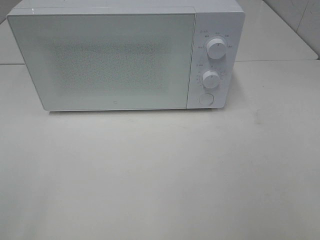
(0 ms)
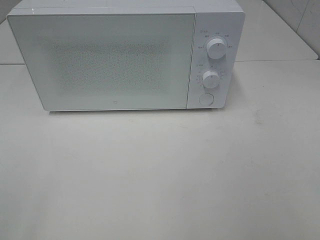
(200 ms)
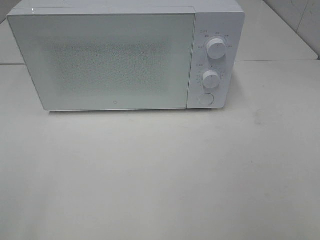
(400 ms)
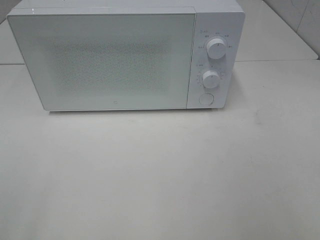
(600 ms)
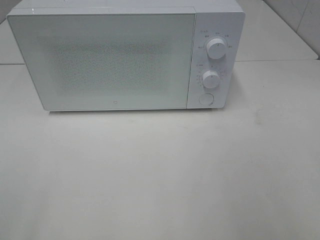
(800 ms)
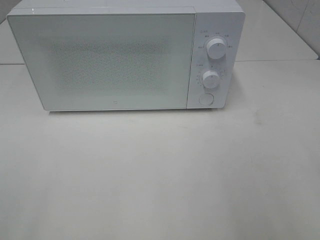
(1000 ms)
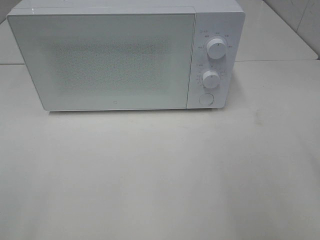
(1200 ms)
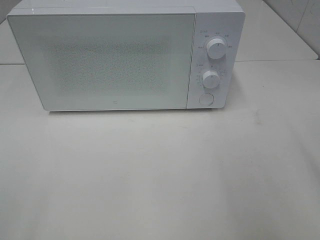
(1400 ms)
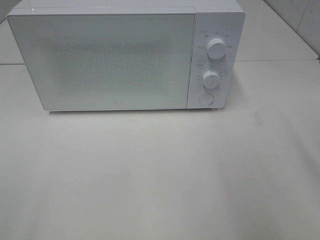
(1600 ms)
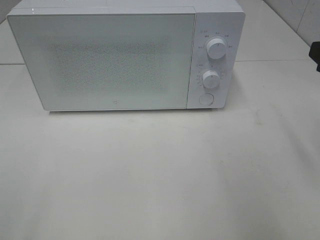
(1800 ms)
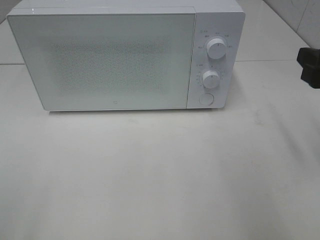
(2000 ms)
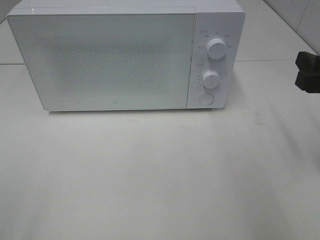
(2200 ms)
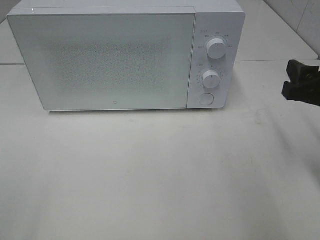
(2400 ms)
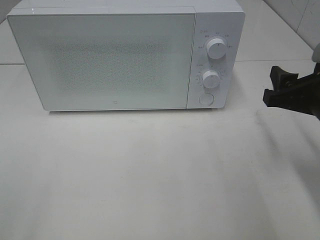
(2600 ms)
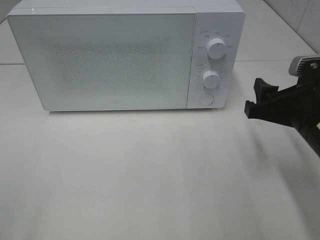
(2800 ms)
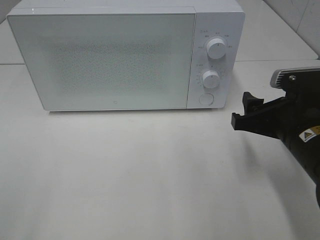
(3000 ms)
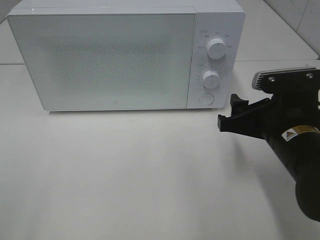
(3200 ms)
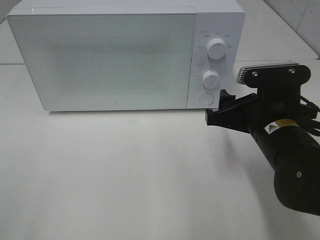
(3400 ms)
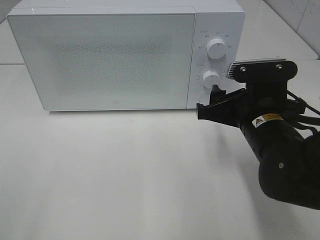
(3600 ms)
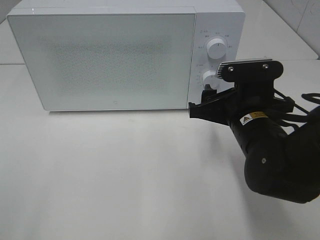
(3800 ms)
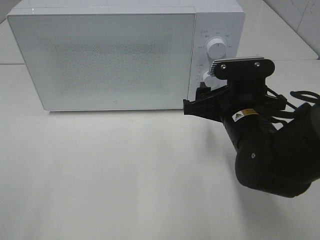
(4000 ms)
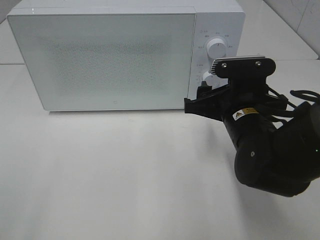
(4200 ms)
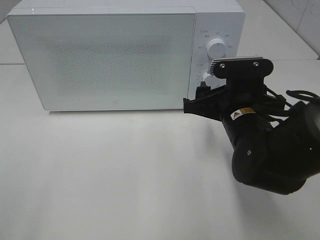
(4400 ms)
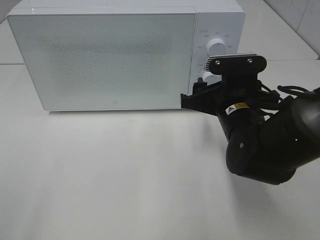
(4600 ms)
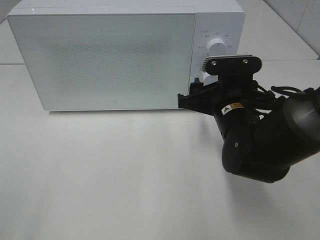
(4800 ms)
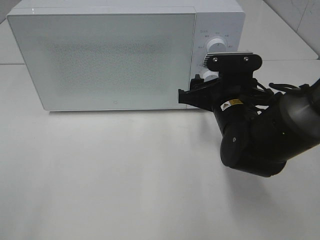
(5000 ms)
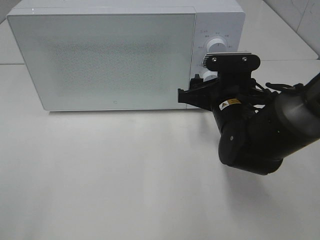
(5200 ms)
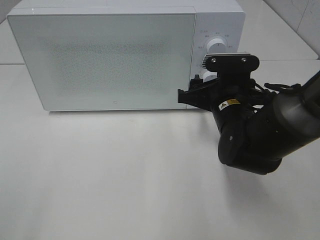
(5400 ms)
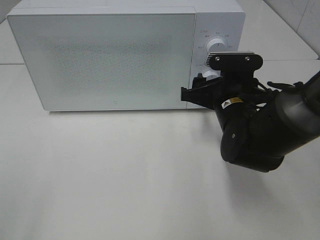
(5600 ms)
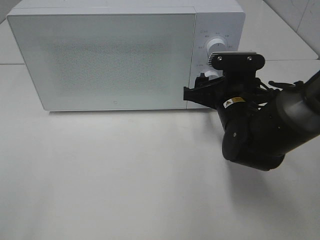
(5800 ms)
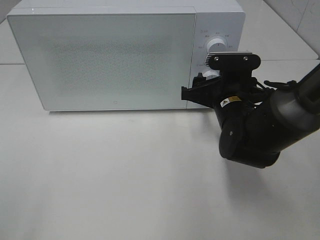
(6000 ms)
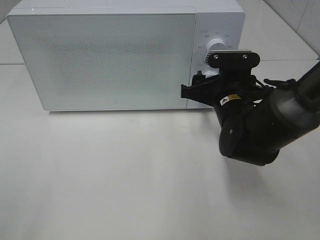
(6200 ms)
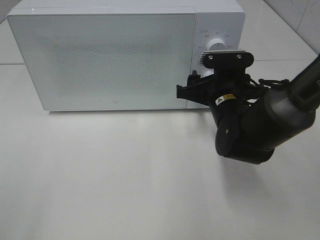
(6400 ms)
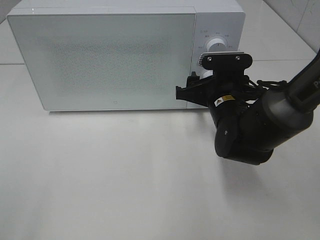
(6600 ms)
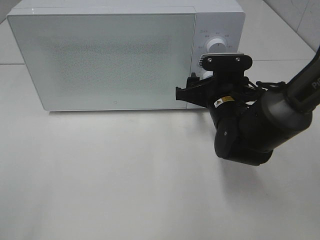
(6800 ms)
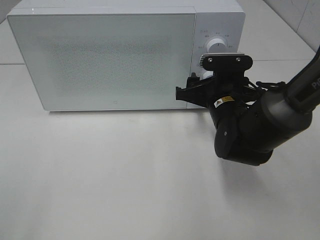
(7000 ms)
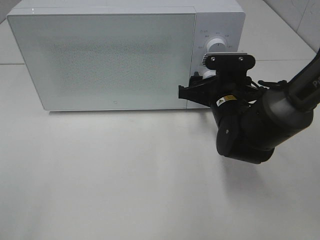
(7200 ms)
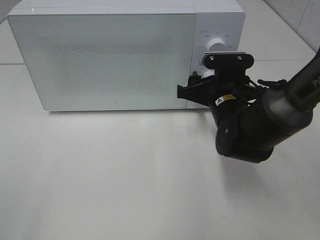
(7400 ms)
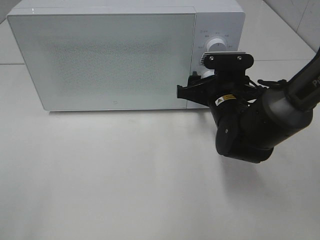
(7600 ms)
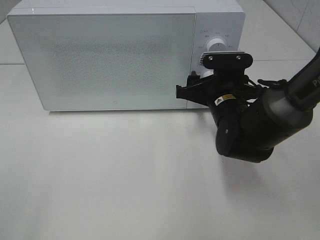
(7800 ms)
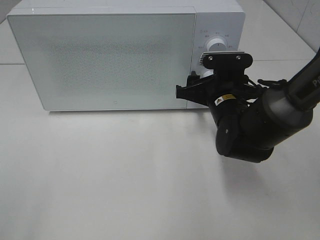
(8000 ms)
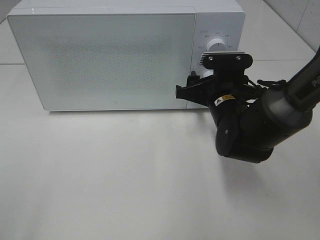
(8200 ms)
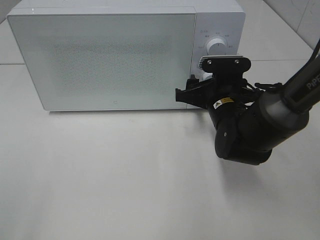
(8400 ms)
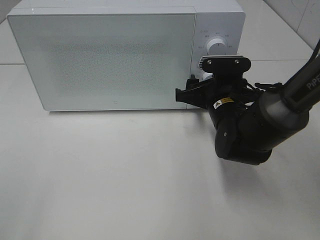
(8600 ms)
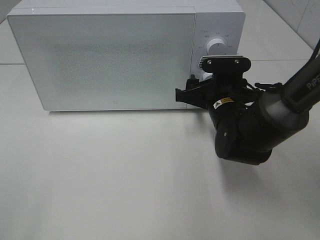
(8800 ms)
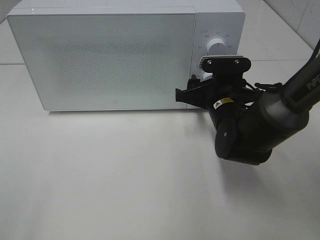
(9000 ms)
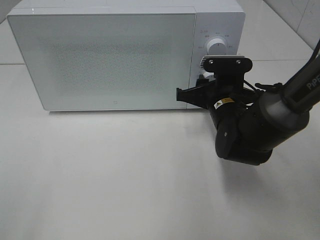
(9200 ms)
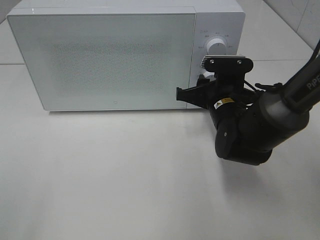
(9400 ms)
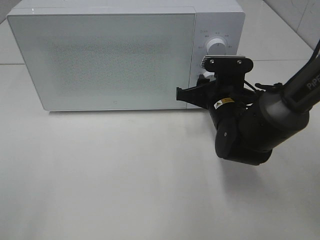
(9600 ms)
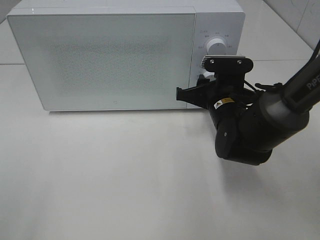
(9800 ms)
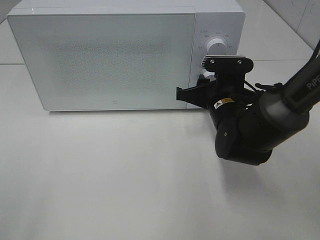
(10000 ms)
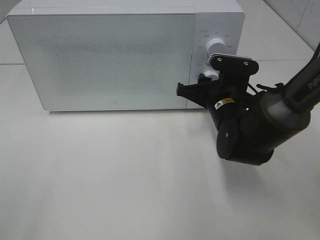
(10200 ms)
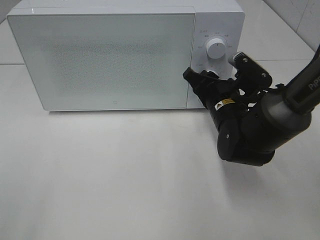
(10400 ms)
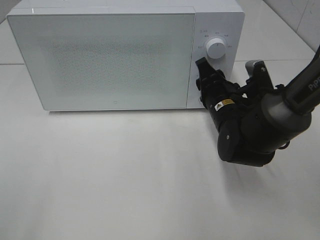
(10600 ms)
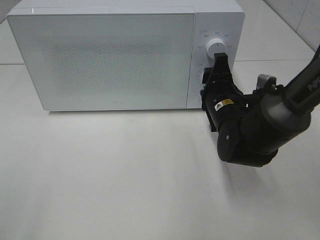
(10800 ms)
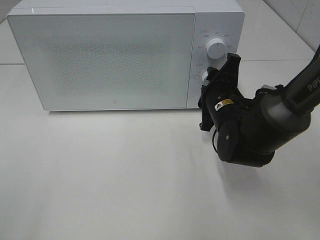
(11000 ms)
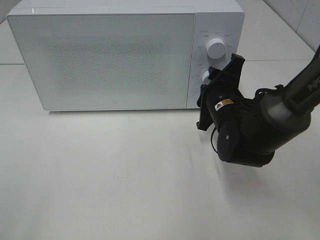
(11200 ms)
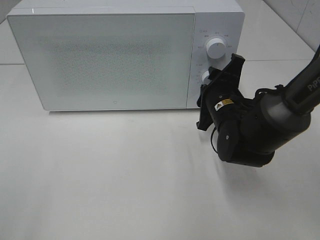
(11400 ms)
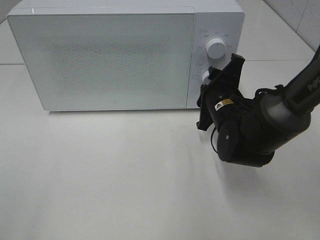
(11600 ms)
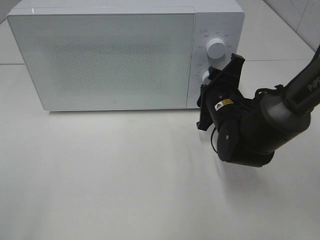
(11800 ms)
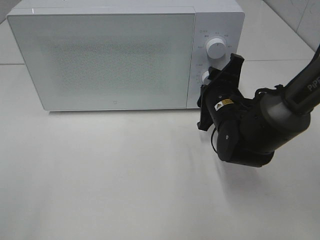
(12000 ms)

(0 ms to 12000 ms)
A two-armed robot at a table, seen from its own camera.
Task of the whole recording: Heat the burger.
1600 ms - 3000 ms: The right gripper goes roughly 15 cm downward and to the left.
3000 ms - 4400 ms: The right gripper is displaced to the left and forward by approximately 10 cm.
4400 ms - 6000 ms: The right gripper moves roughly 5 cm.
6000 ms - 7600 ms: The grippers make only small movements.
7600 ms - 9000 ms: Both grippers stay put.

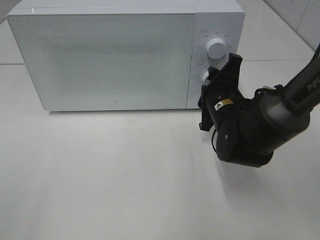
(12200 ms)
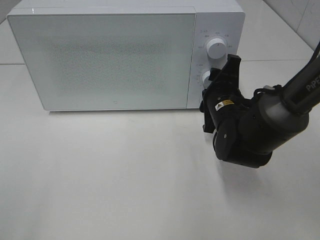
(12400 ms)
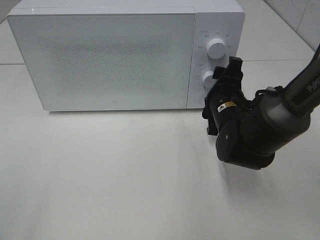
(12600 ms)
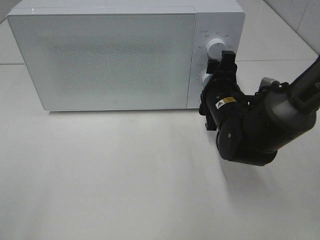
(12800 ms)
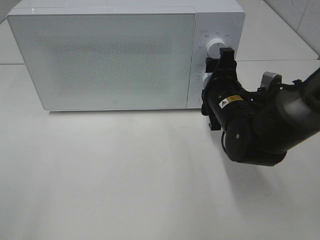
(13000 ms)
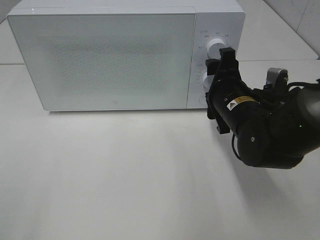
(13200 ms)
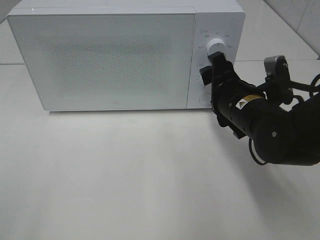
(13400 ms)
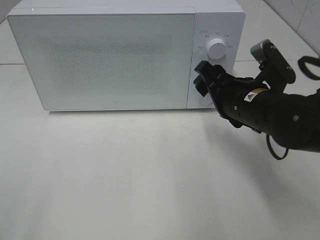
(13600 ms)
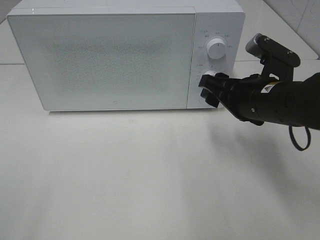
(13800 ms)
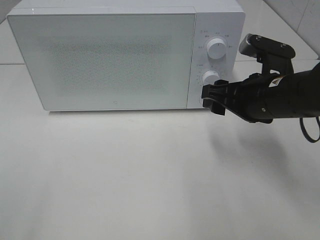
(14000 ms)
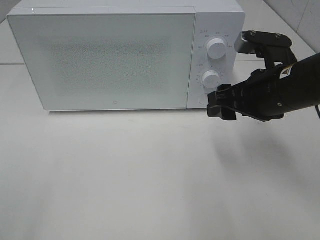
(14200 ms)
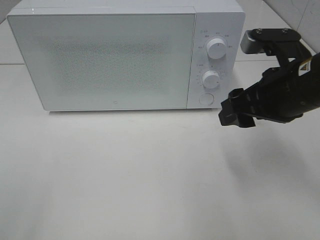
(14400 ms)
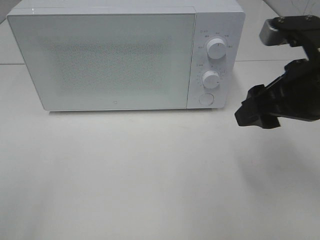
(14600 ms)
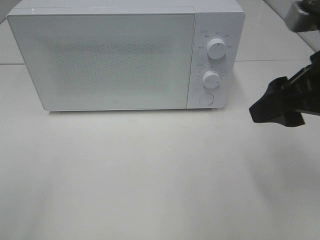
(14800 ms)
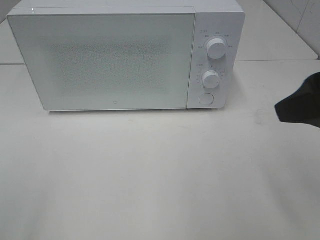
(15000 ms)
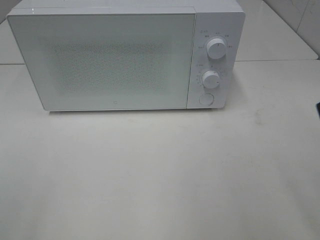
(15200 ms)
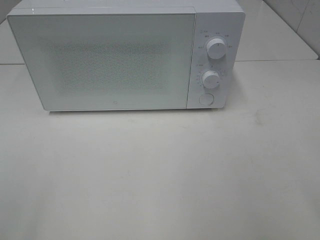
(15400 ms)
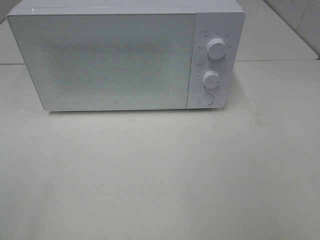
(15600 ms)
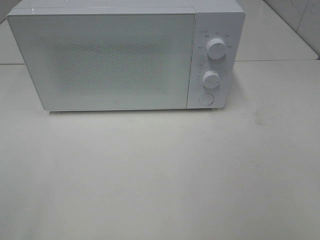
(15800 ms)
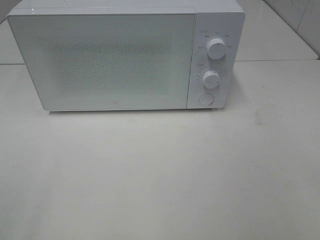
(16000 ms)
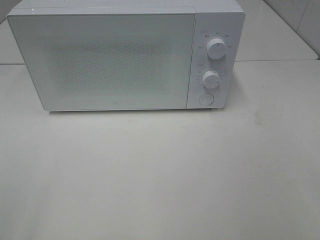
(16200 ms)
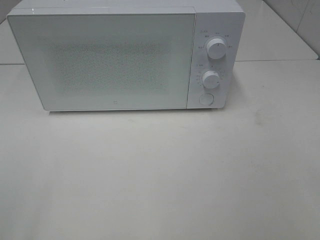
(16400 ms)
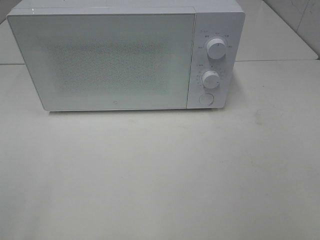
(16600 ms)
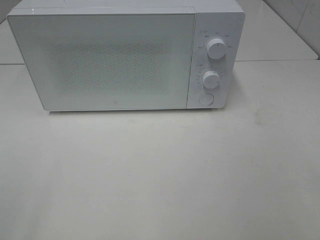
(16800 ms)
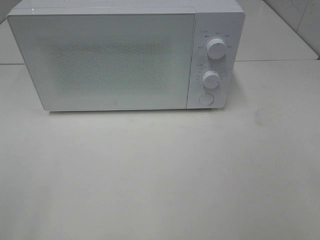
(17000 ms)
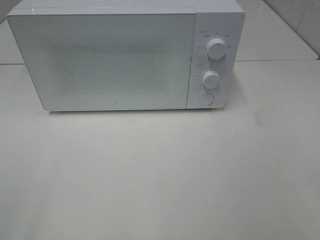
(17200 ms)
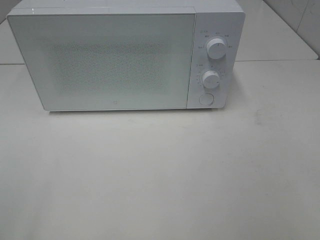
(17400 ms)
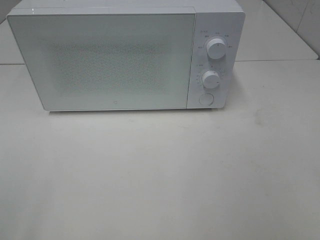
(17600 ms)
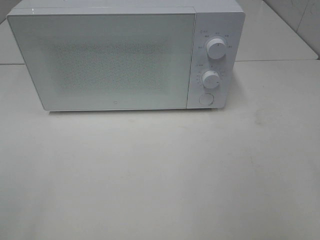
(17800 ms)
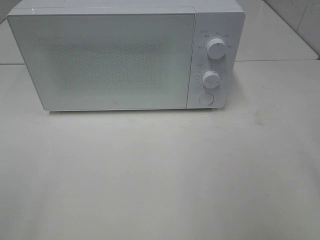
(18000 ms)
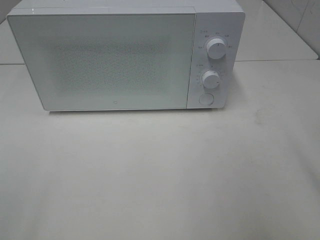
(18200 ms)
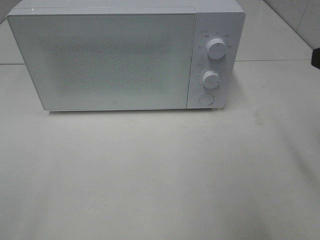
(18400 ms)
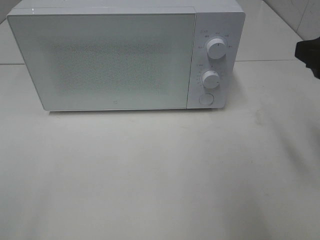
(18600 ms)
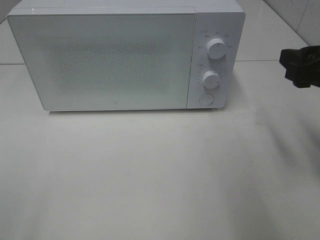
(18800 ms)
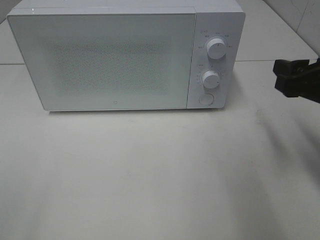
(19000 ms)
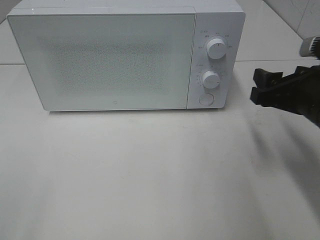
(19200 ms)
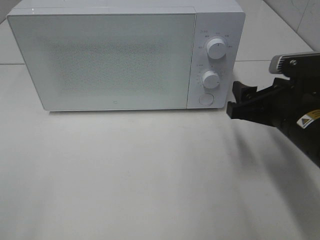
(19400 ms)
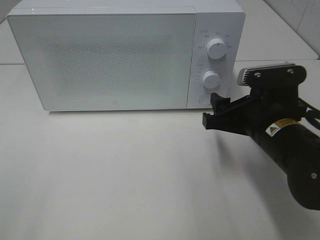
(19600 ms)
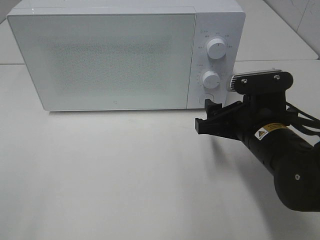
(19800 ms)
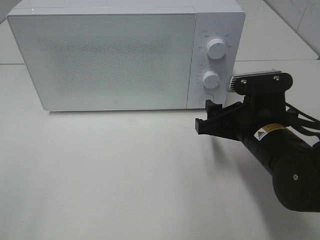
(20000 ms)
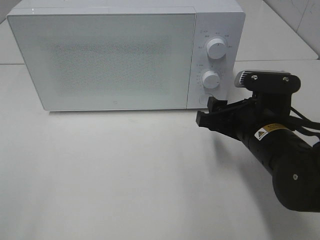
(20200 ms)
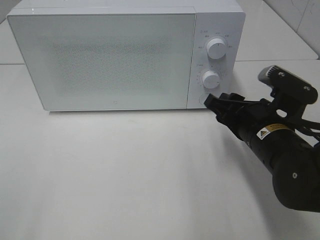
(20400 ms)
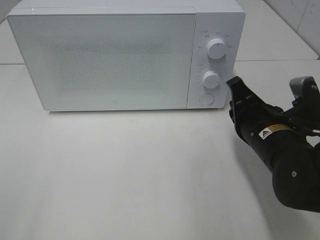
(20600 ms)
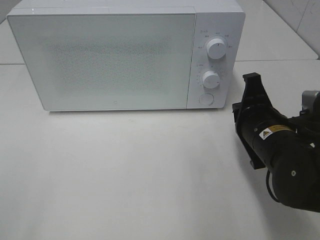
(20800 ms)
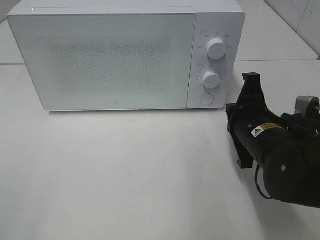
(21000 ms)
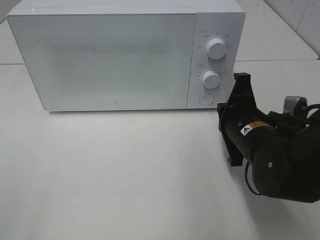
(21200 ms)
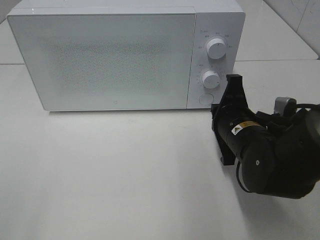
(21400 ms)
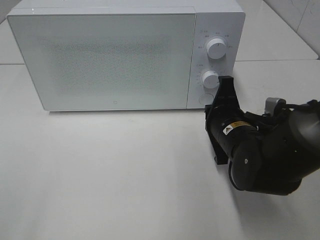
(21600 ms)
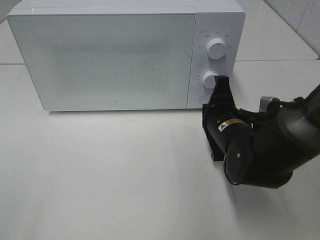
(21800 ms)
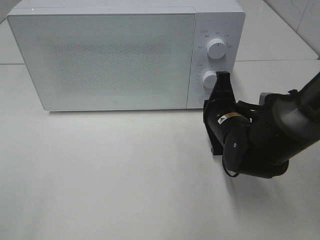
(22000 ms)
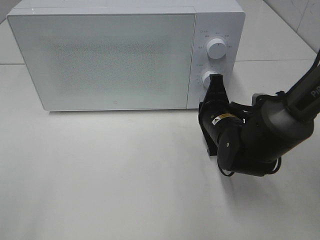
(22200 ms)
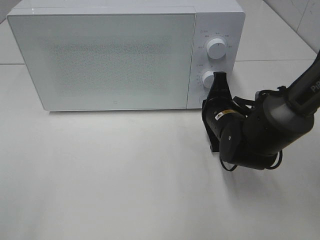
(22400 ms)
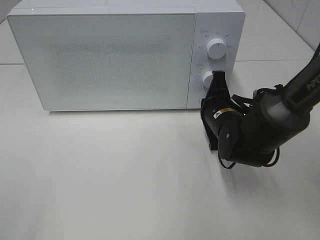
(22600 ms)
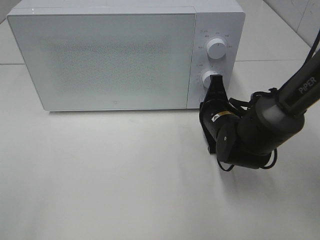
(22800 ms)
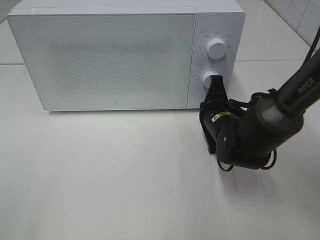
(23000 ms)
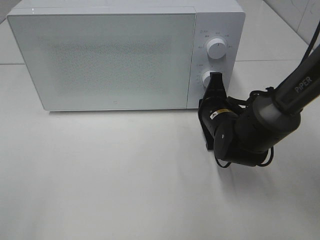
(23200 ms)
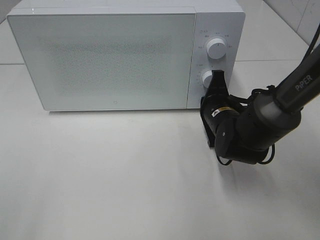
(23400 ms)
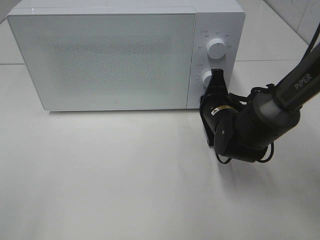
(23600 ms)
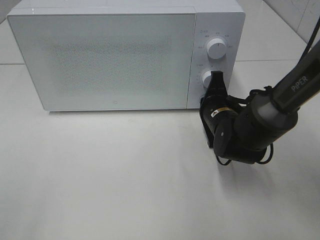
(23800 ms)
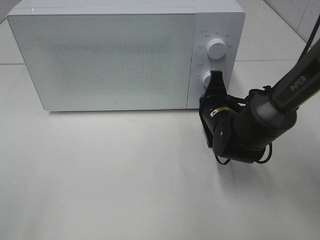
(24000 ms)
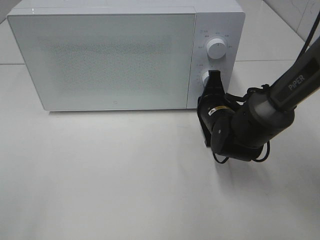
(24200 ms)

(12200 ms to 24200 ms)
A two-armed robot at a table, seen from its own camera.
Task of the whole recording: Heat the burger.
12200 ms - 13800 ms: The right gripper is displaced upward and backward by some 10 cm.
13800 ms - 15200 ms: The right gripper is displaced backward, upward and to the right by about 25 cm.
18200 ms - 19800 ms: The right gripper moves downward, to the left and forward, about 20 cm.
19800 ms - 21200 ms: The right gripper closes.
21200 ms - 22600 ms: The right gripper shifts approximately 5 cm forward.
22600 ms - 24200 ms: The grippers make only small movements.
